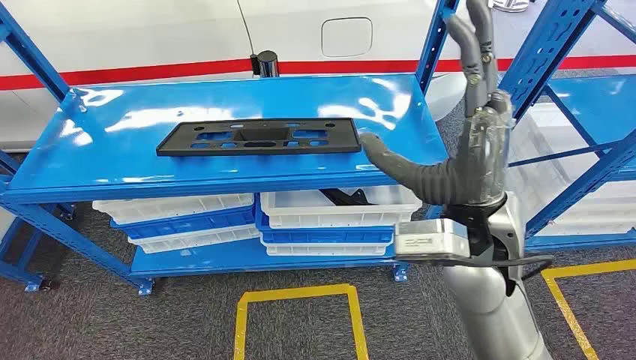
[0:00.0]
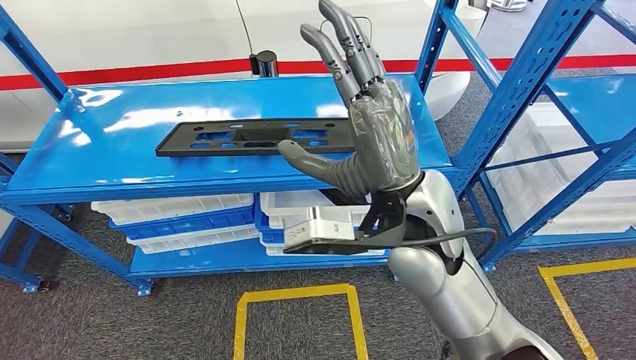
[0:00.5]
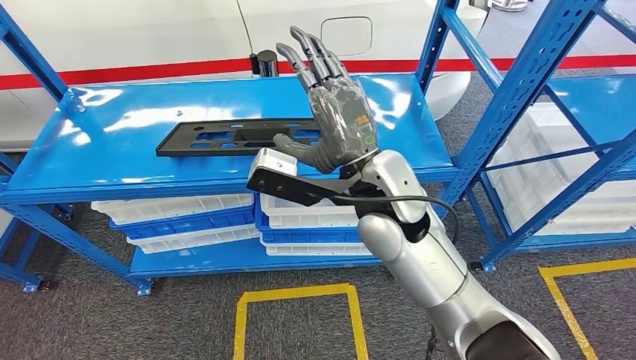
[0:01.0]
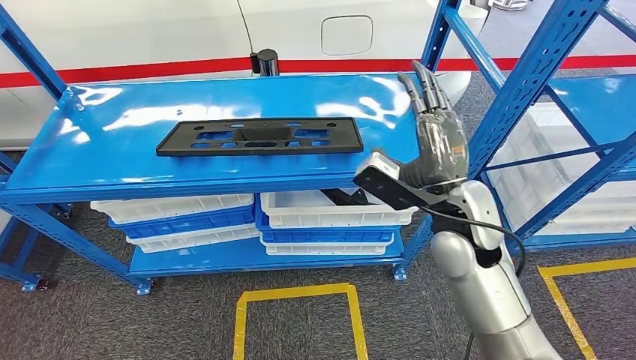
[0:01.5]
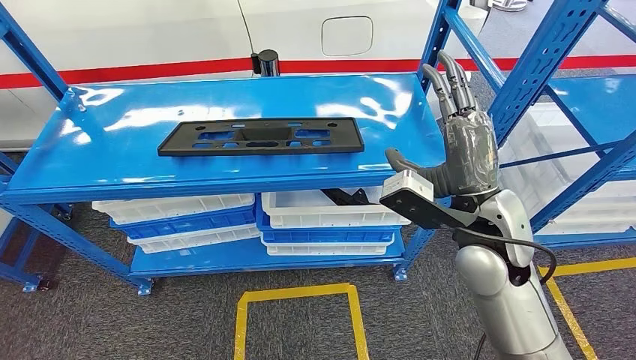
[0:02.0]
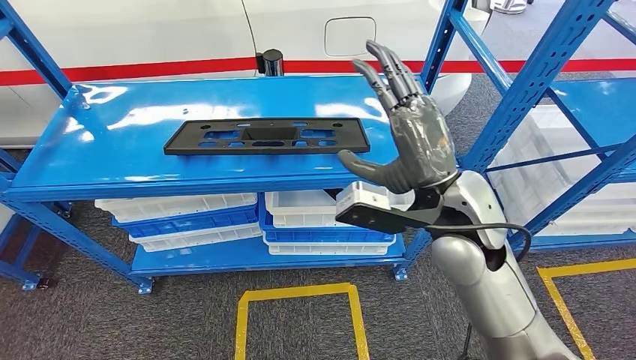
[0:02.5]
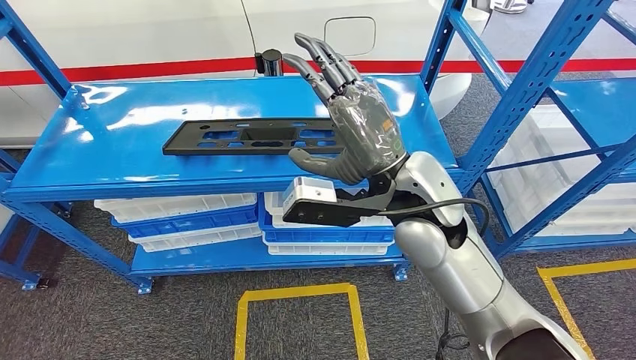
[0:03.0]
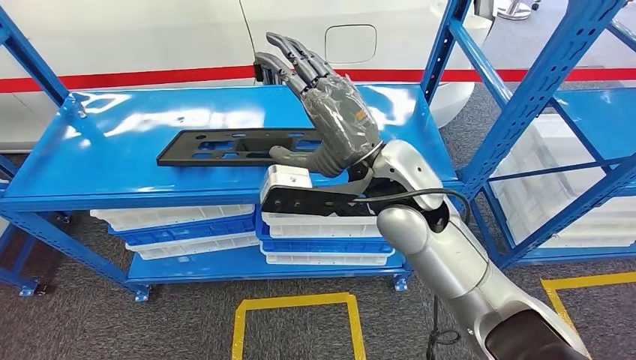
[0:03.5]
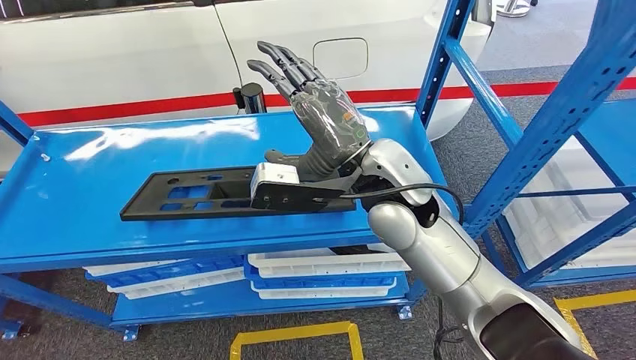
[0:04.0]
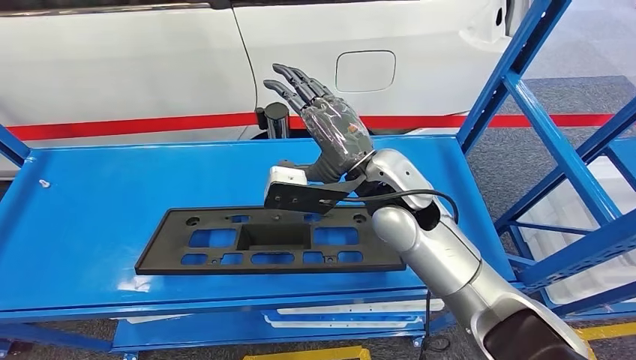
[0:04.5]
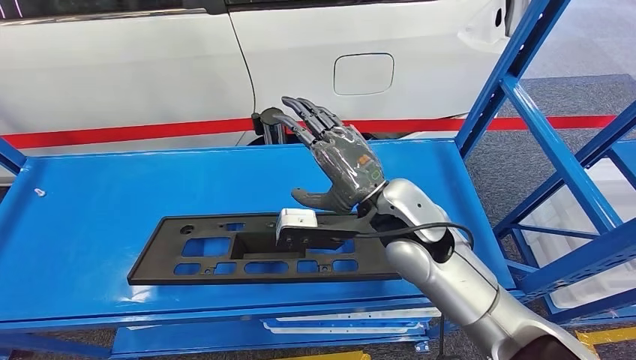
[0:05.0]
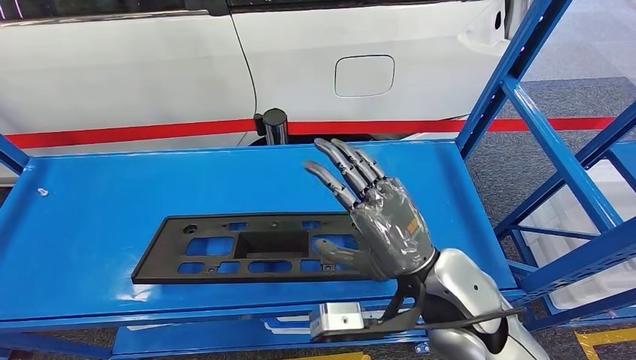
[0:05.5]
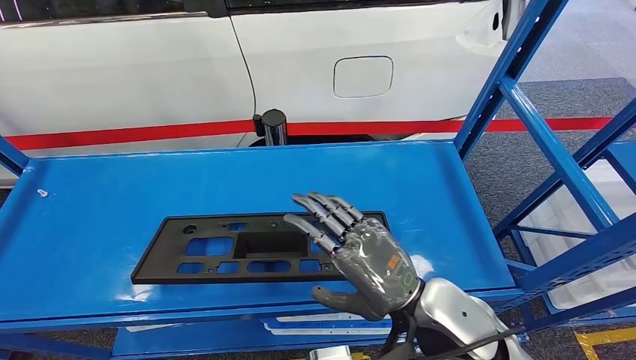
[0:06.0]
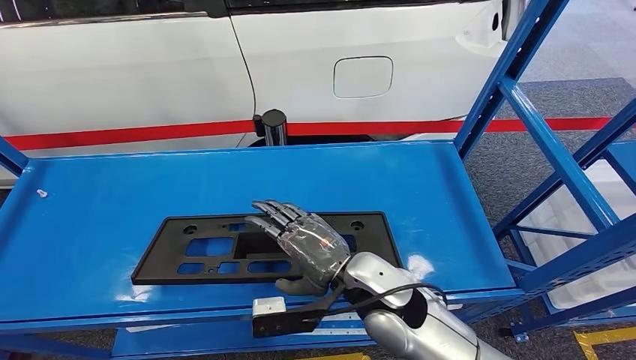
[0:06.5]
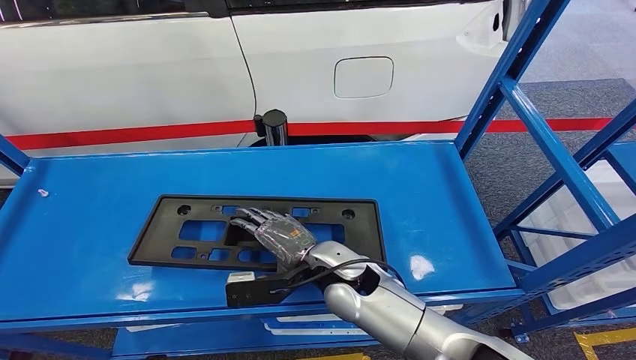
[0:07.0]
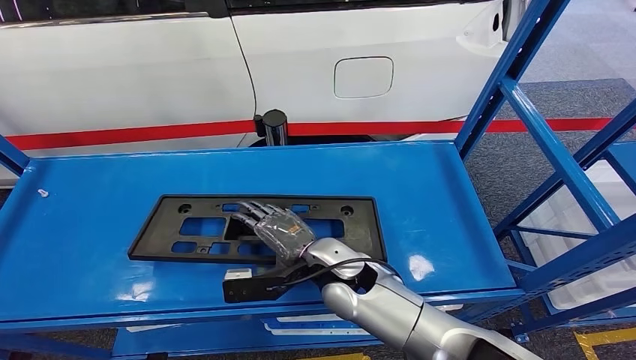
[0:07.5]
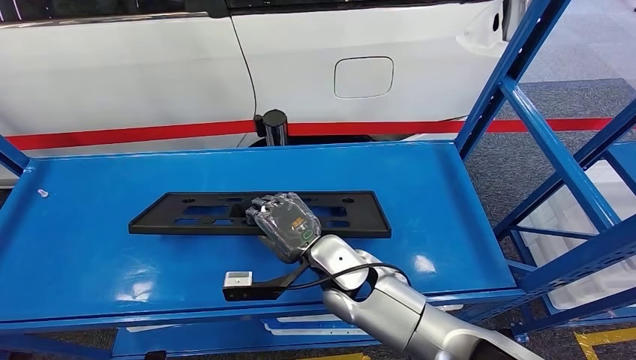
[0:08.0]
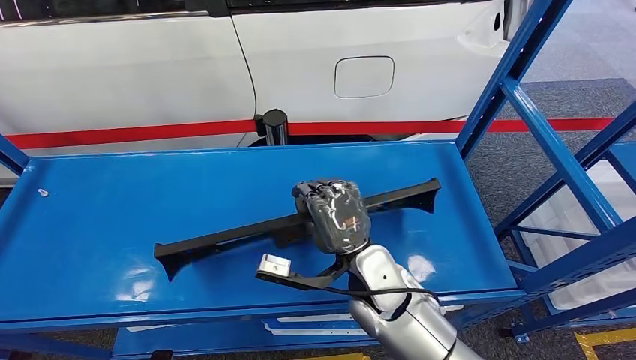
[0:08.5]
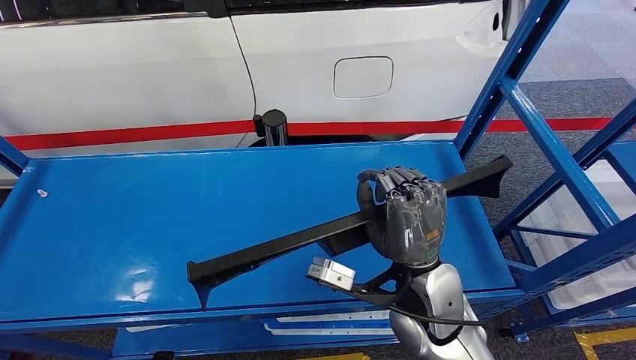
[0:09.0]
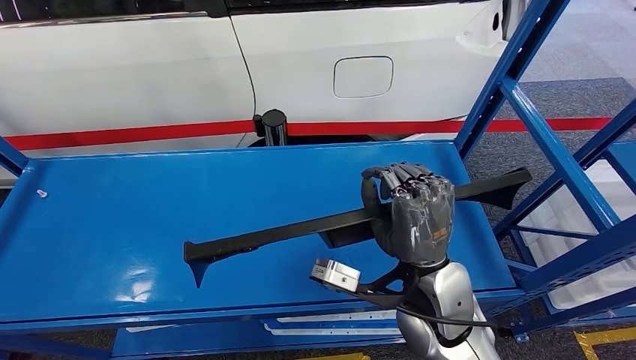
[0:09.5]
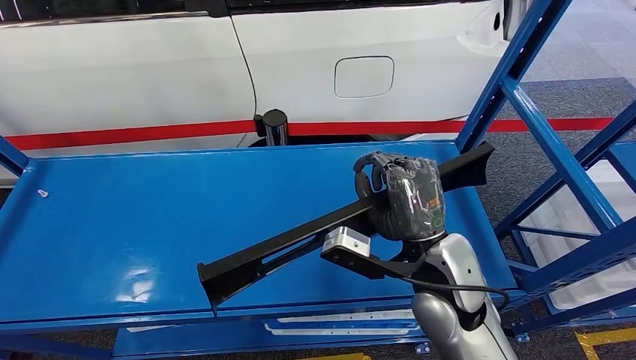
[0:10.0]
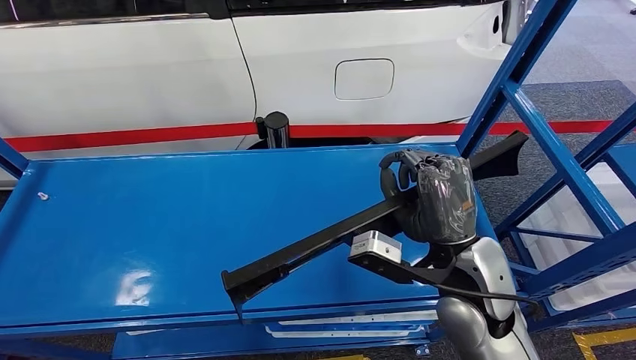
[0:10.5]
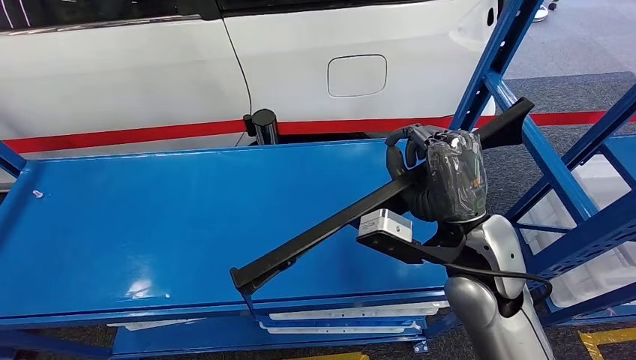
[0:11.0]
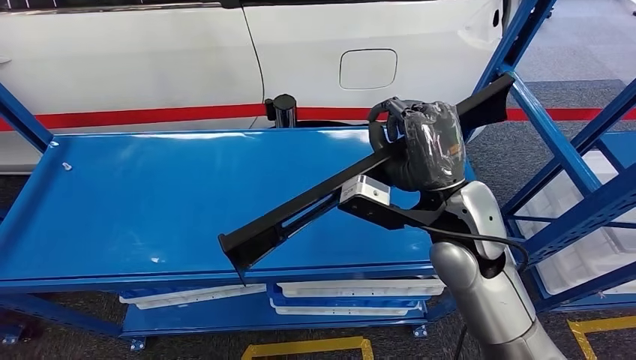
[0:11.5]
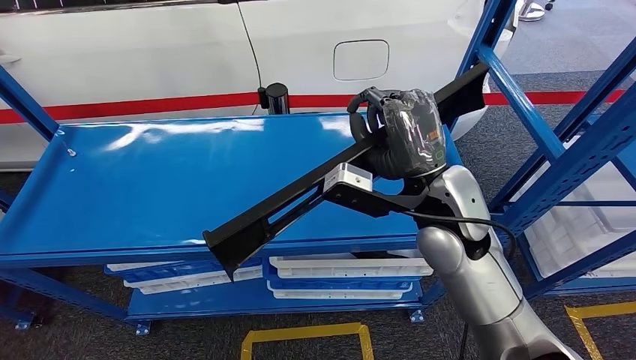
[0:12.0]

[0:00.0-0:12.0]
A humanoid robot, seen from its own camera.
6.0 to 8.0 s: The right hand travels forward, downward and to the left by about 15 cm.
8.0 to 10.0 s: The right hand heads to the right and upward, covering approximately 10 cm.

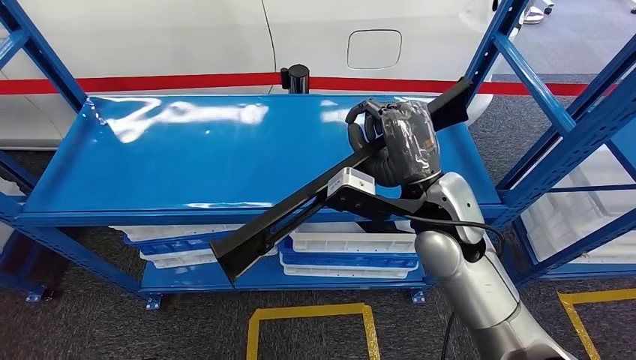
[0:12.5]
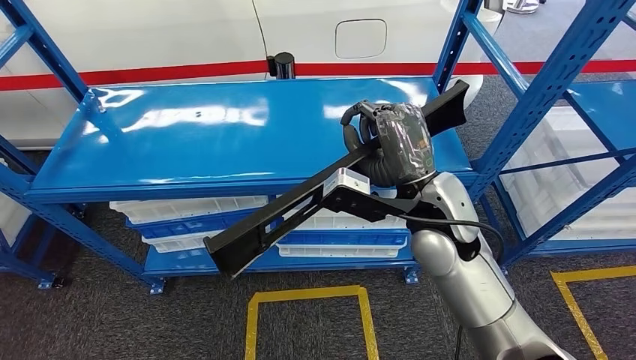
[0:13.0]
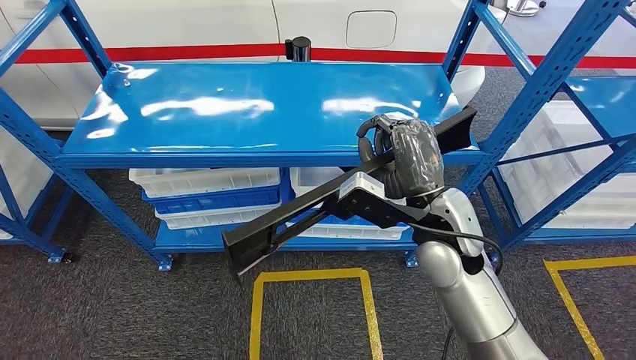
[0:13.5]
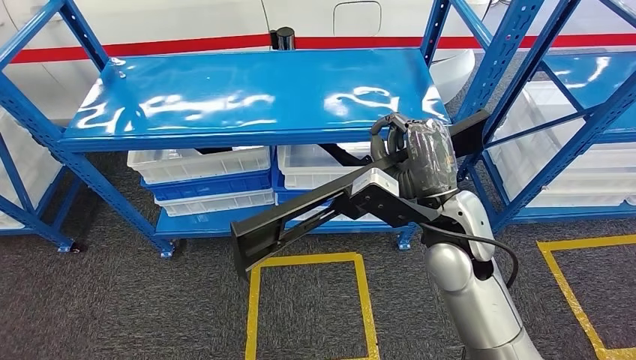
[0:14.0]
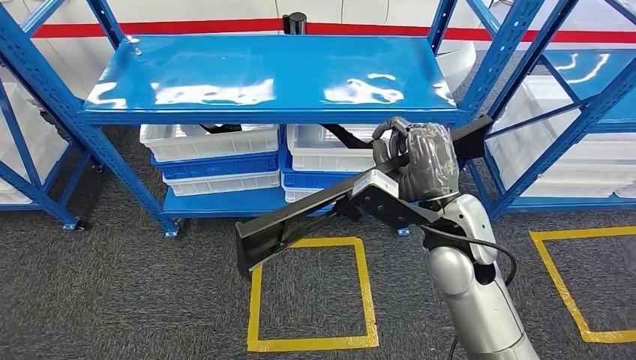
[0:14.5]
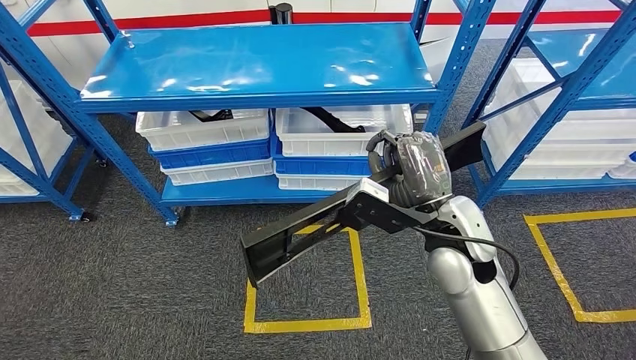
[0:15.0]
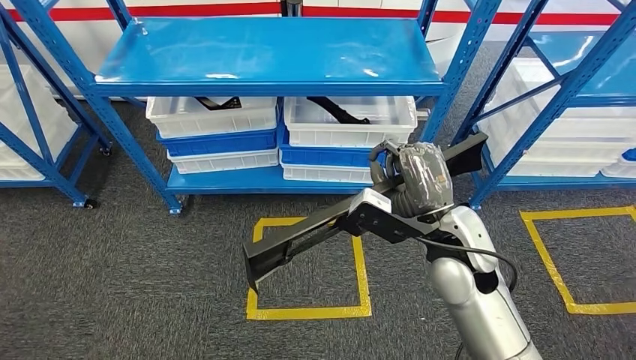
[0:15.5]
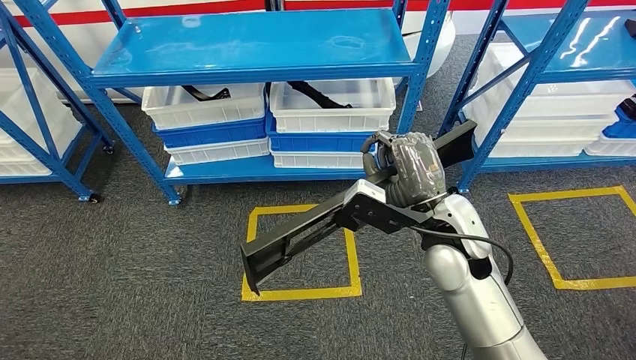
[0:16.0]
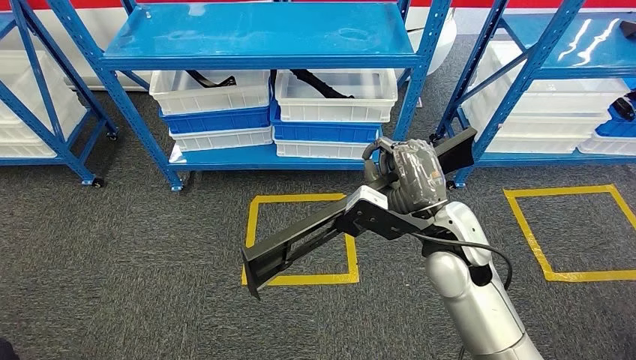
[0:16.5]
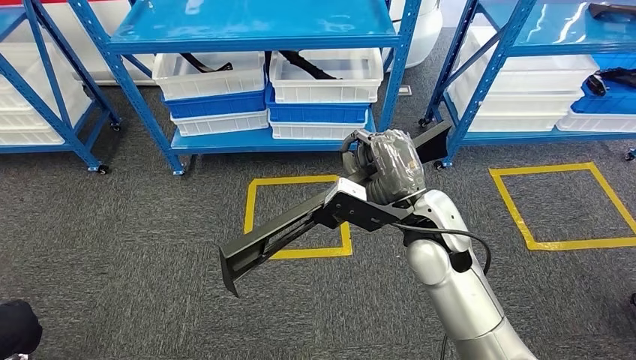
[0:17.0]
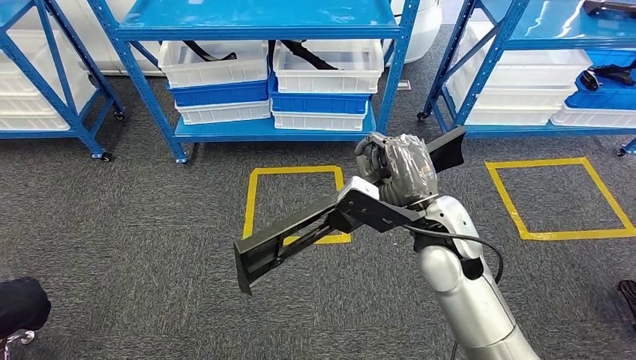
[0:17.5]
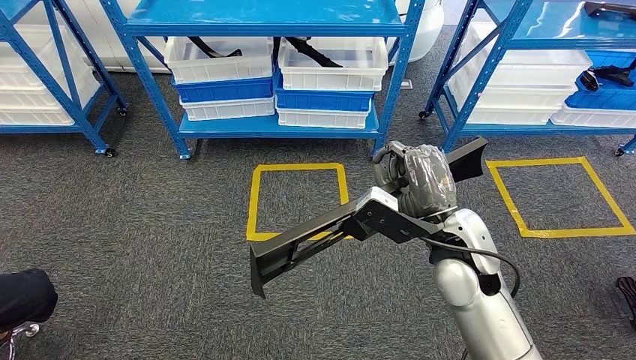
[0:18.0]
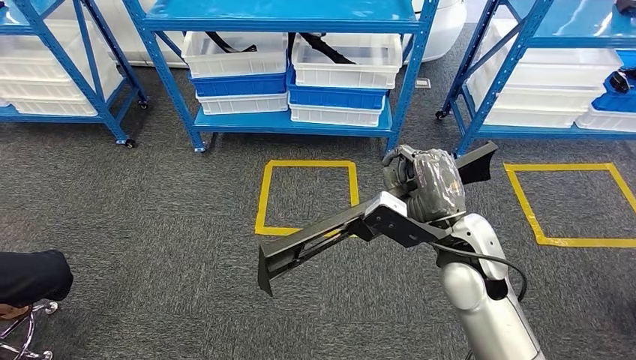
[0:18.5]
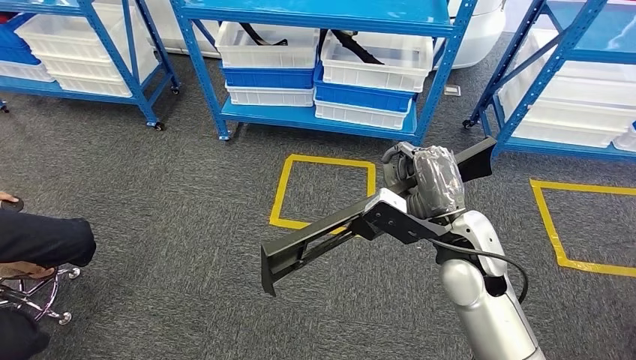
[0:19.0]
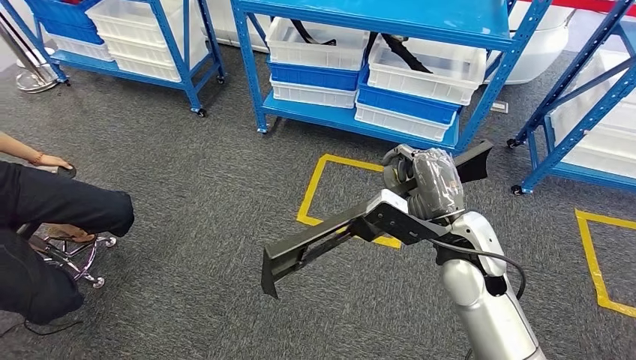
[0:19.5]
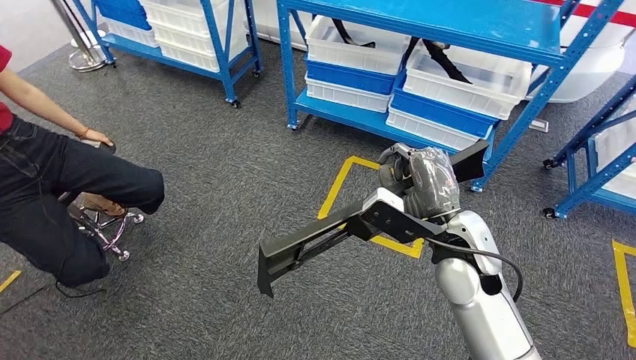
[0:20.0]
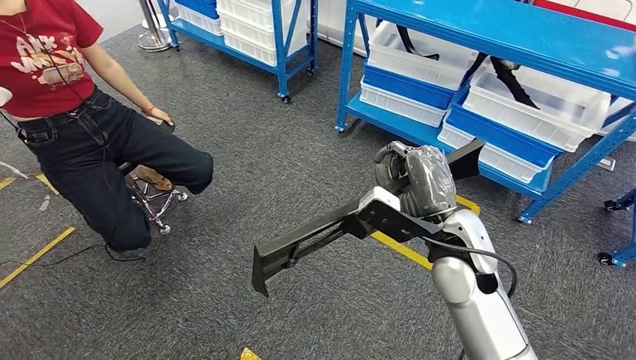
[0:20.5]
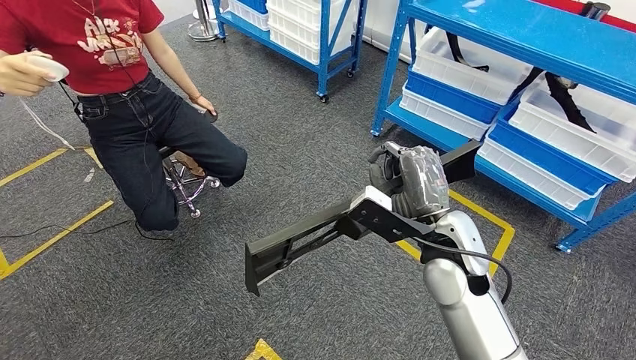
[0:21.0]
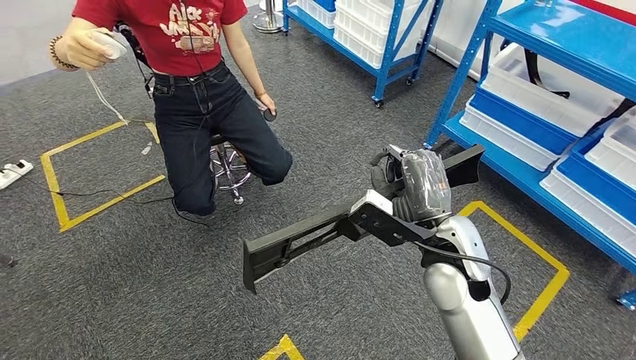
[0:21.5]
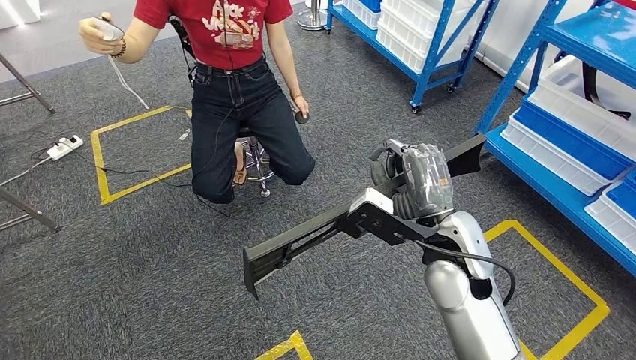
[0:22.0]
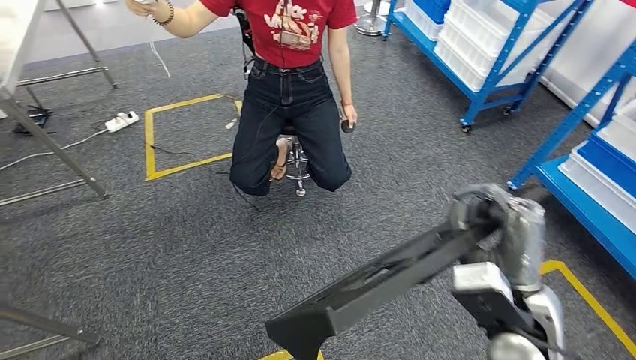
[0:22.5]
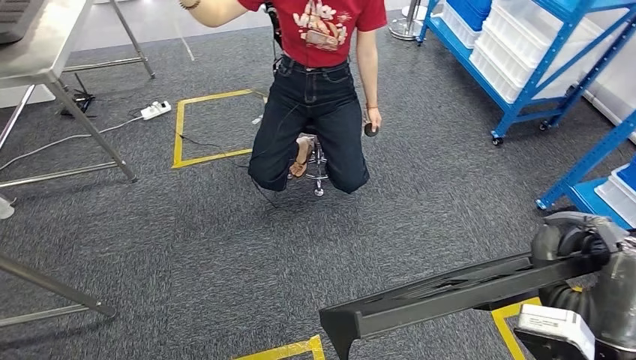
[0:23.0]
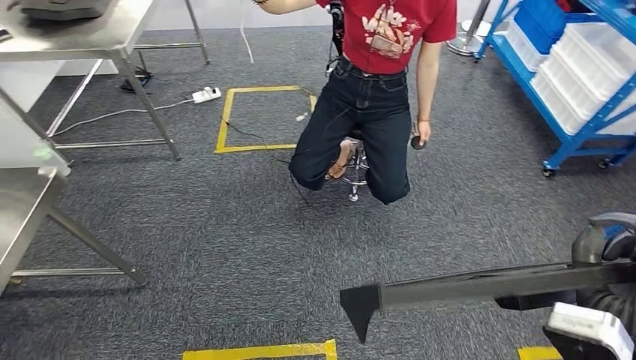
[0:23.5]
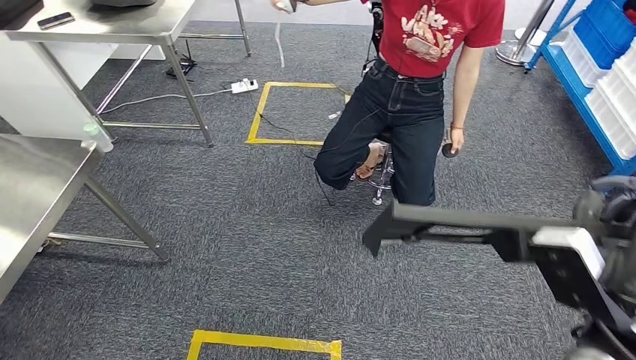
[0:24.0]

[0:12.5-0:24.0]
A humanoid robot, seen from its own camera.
Step, 12.5 to 14.5 s: Pick up the large material from the shelf.
